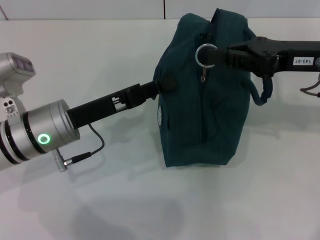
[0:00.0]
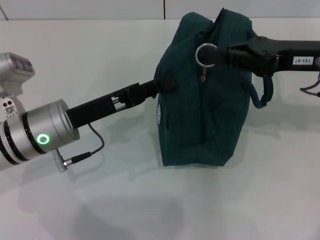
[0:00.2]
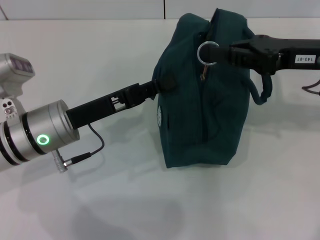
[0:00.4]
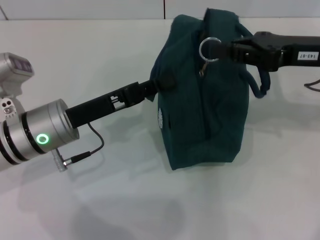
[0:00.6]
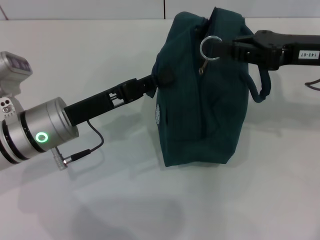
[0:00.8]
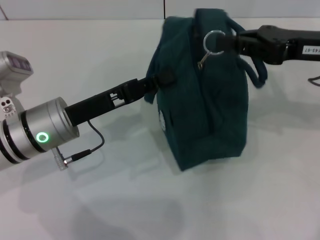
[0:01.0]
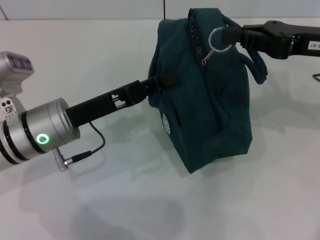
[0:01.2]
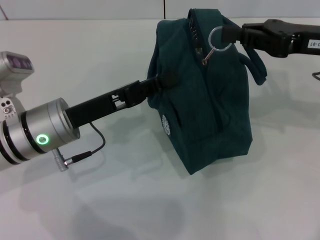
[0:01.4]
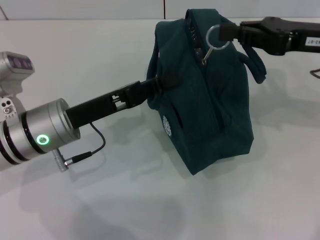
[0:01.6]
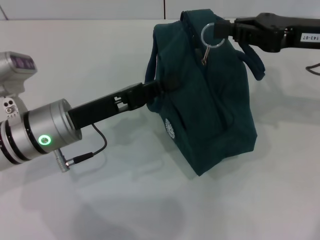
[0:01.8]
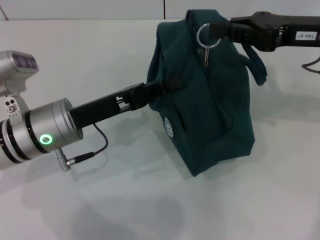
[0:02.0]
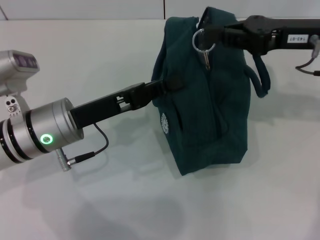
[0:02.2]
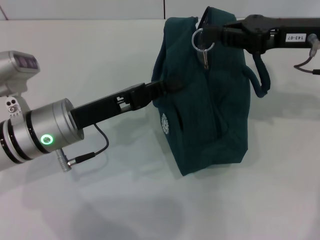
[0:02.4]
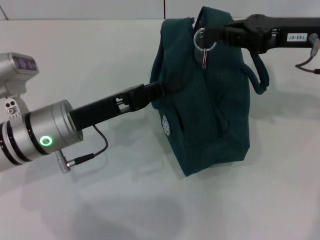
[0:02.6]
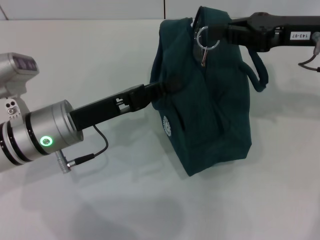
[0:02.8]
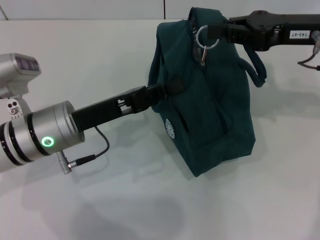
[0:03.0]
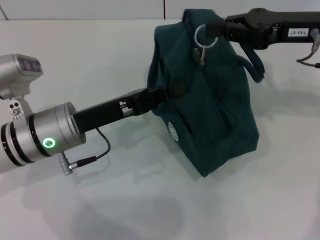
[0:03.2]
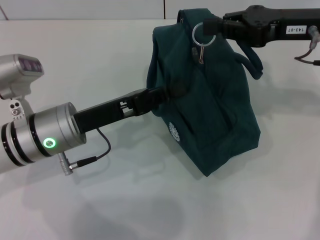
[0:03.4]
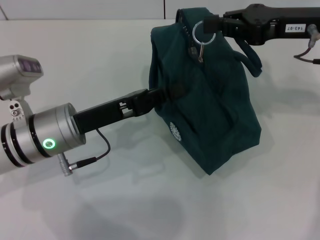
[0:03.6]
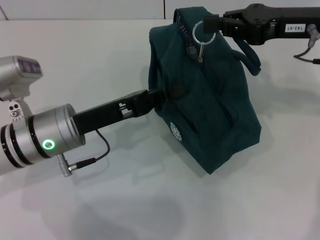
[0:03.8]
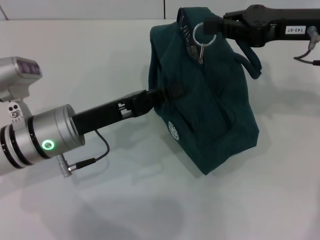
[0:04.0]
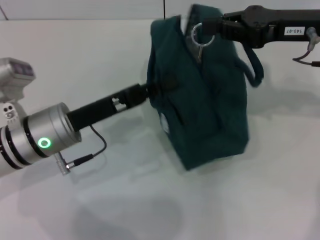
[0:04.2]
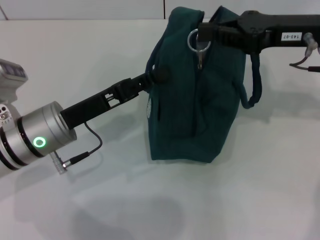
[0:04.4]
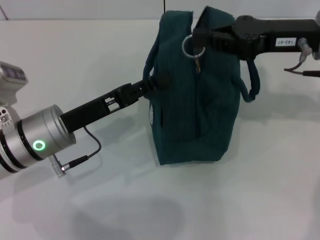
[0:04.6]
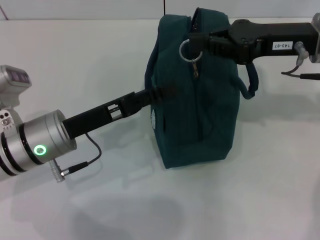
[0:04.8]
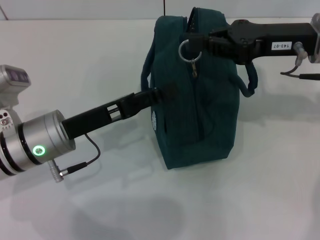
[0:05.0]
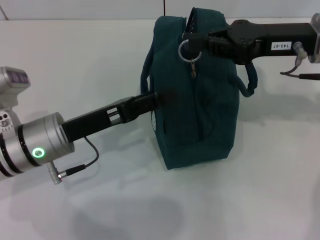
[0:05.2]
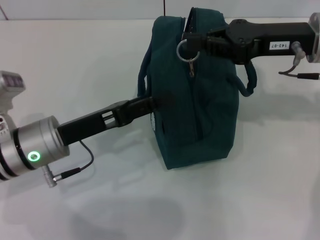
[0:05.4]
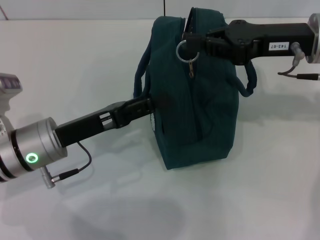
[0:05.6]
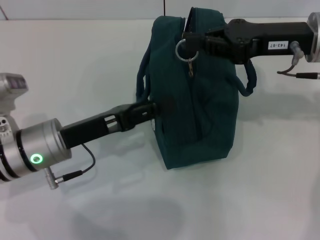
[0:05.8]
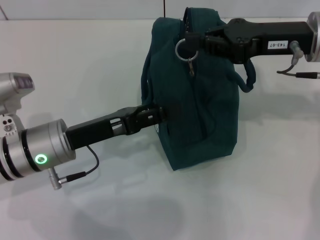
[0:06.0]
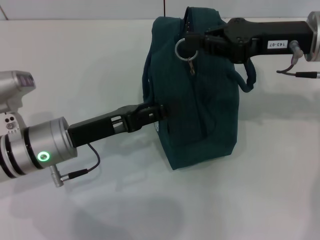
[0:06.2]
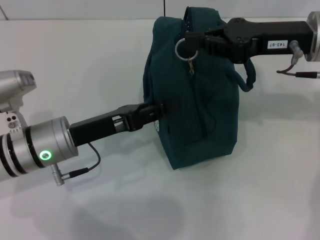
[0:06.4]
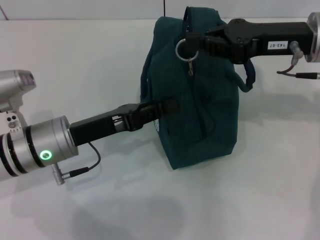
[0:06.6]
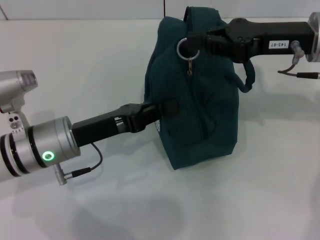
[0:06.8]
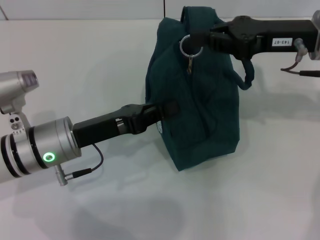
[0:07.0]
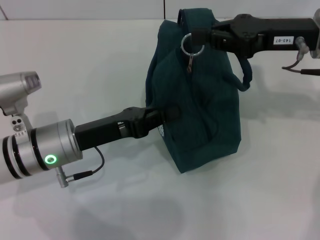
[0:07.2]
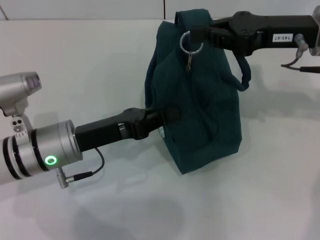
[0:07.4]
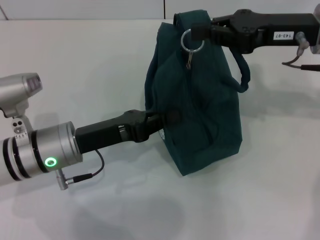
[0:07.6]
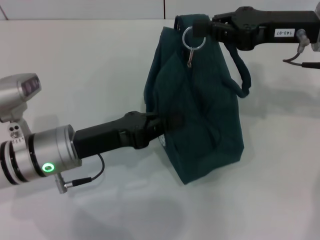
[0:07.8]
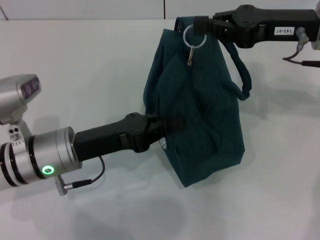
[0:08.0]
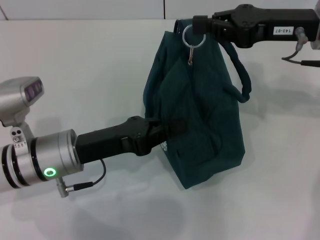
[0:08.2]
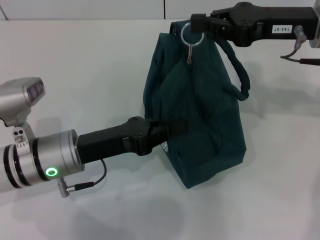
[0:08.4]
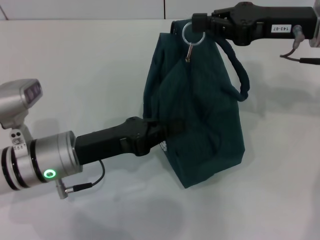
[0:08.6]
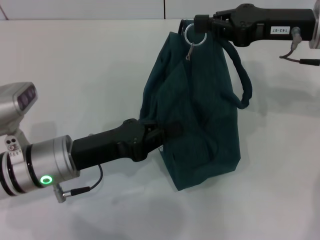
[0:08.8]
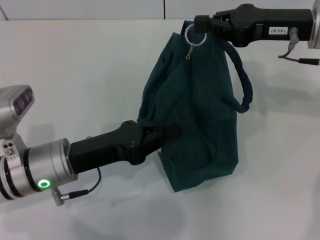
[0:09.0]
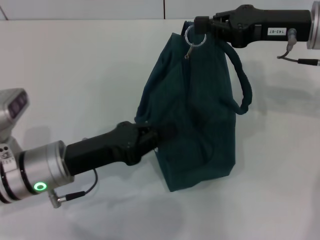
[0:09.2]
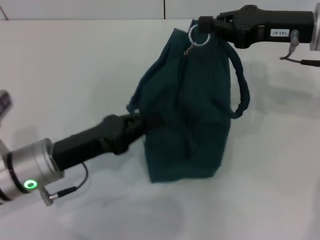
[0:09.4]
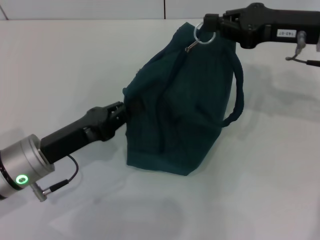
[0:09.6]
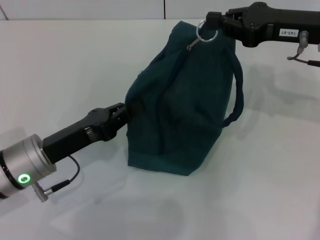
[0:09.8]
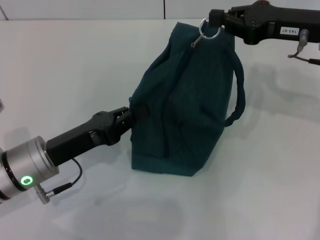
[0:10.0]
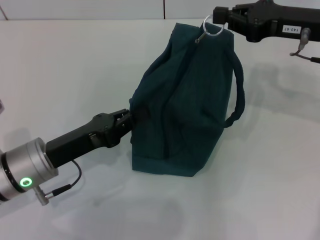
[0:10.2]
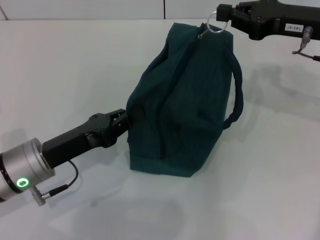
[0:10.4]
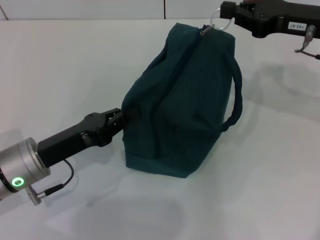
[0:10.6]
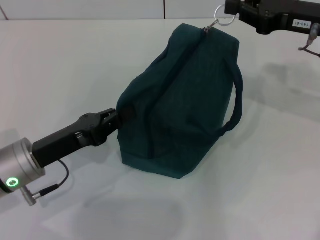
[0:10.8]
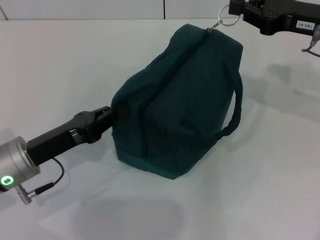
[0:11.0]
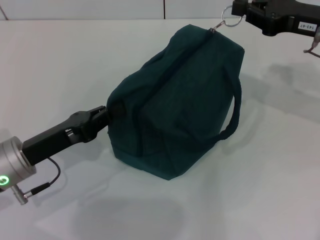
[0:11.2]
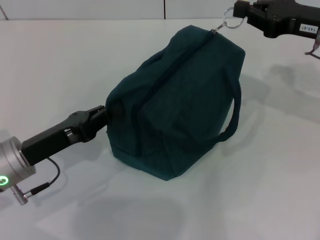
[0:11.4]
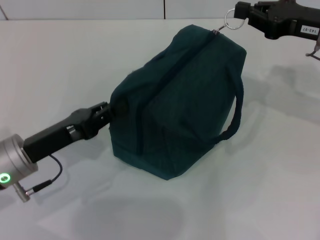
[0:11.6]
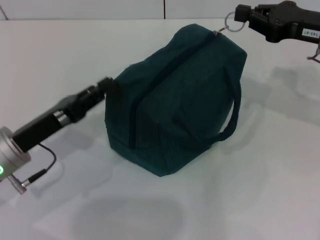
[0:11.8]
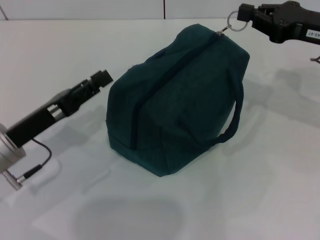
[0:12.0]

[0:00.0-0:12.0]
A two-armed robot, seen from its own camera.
0:00.0 to 0:04.4: The grippers stay close to where they were, moving slightly.
0:04.4 to 0:06.0: The left gripper opens its fingers.
0:06.0 to 0:07.6: The left gripper closes.
0:10.4 to 0:12.0: There are only small adjustments of the grippers.

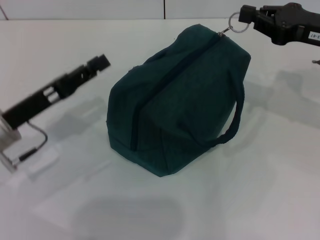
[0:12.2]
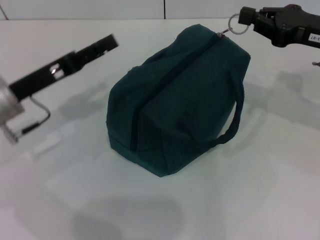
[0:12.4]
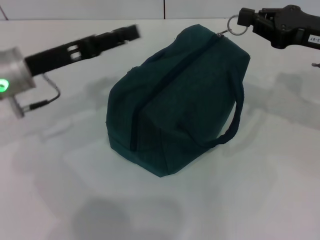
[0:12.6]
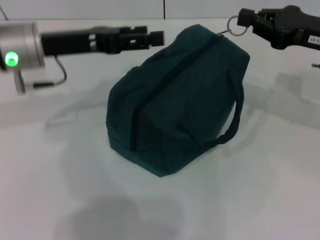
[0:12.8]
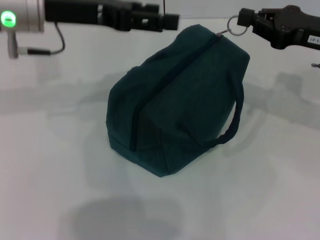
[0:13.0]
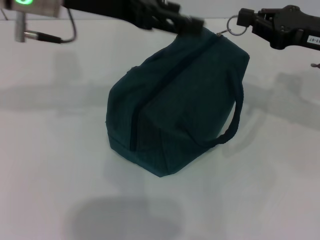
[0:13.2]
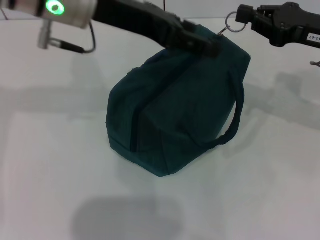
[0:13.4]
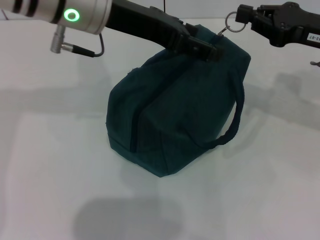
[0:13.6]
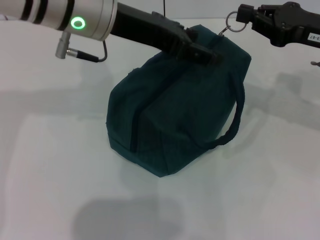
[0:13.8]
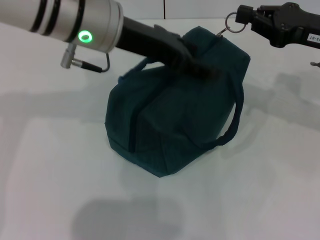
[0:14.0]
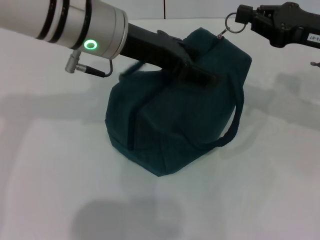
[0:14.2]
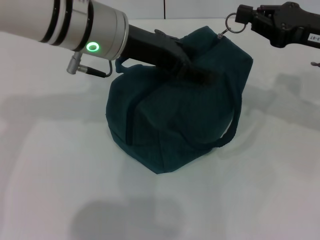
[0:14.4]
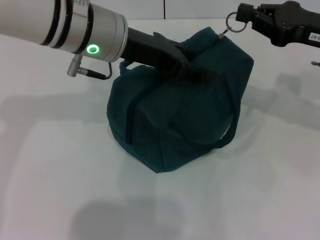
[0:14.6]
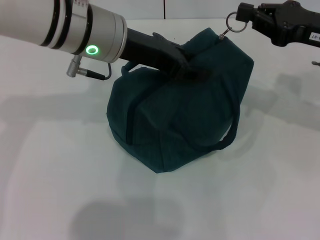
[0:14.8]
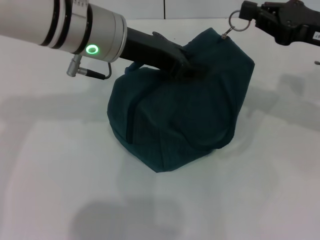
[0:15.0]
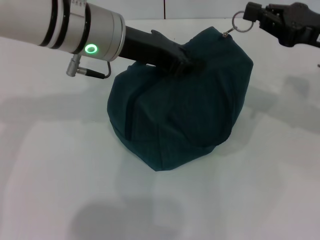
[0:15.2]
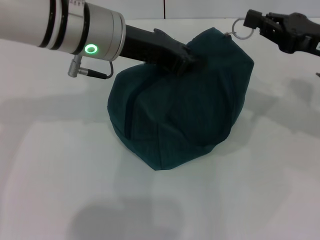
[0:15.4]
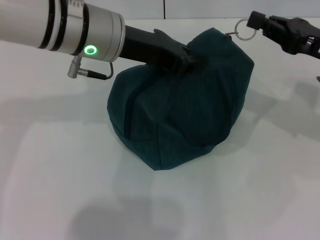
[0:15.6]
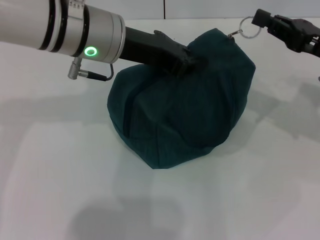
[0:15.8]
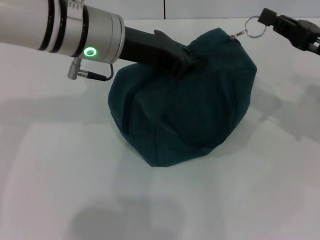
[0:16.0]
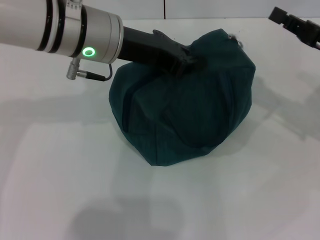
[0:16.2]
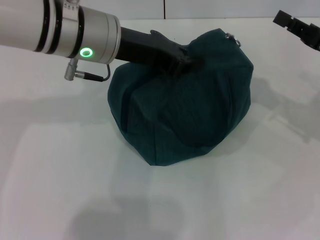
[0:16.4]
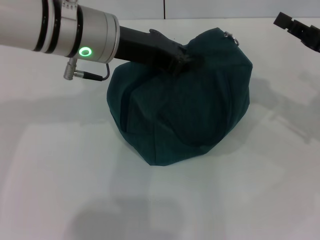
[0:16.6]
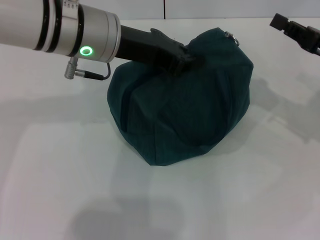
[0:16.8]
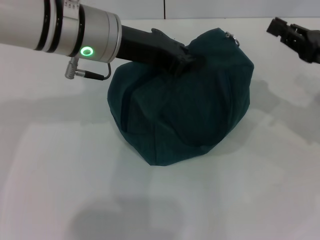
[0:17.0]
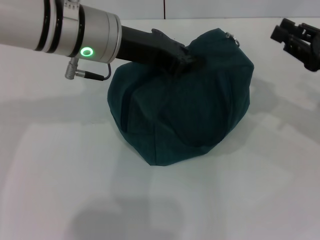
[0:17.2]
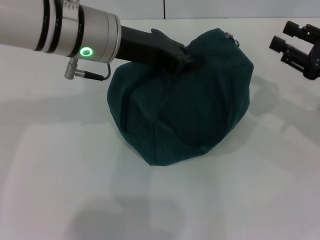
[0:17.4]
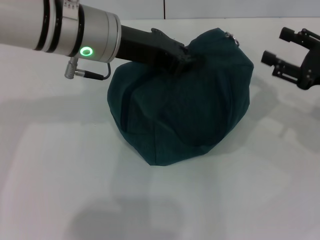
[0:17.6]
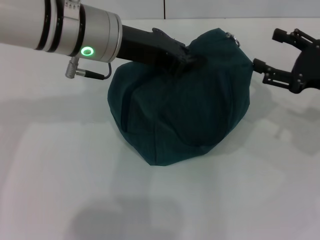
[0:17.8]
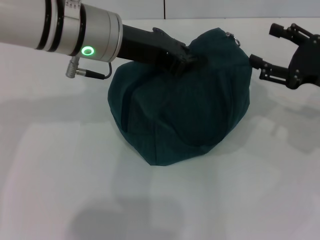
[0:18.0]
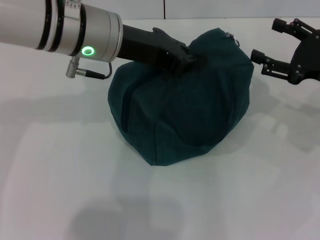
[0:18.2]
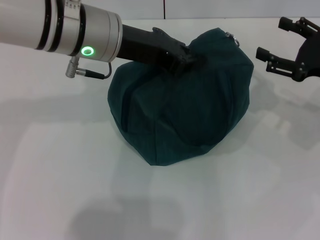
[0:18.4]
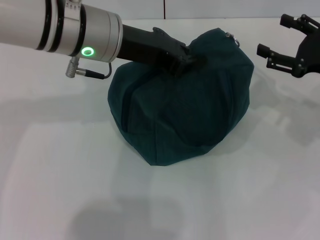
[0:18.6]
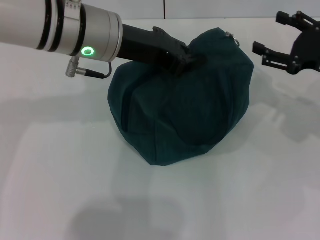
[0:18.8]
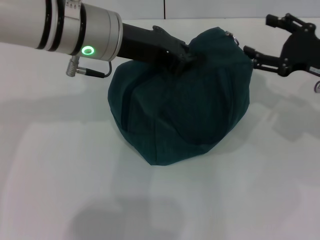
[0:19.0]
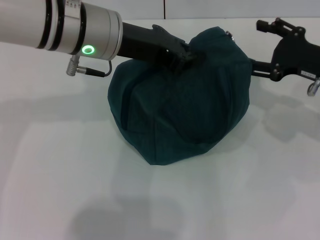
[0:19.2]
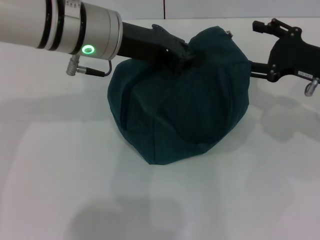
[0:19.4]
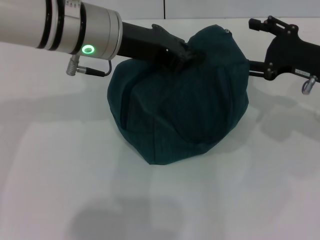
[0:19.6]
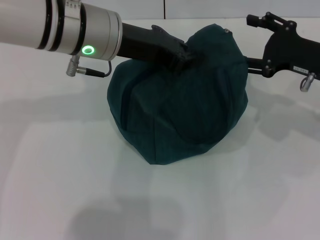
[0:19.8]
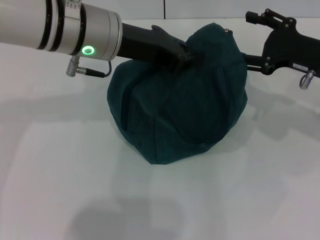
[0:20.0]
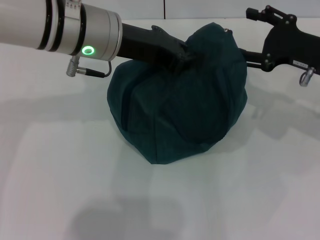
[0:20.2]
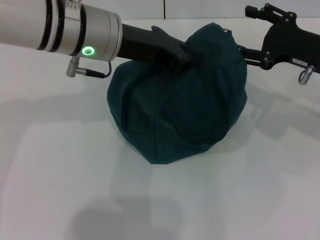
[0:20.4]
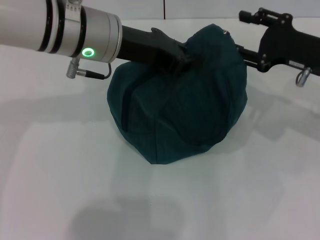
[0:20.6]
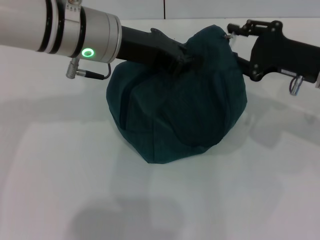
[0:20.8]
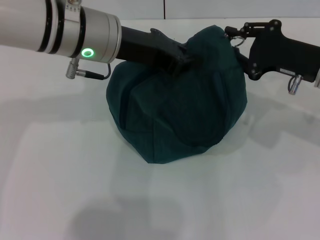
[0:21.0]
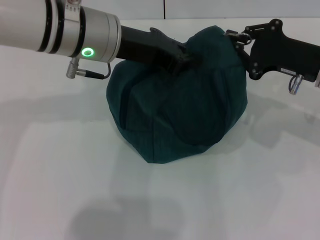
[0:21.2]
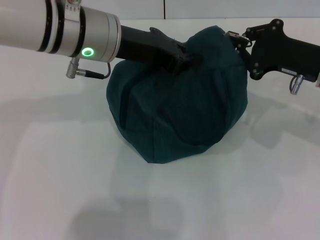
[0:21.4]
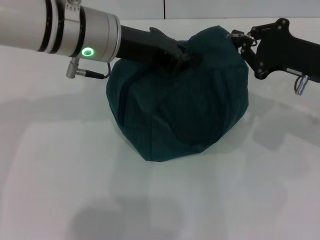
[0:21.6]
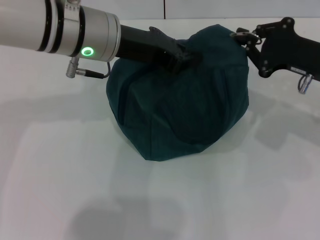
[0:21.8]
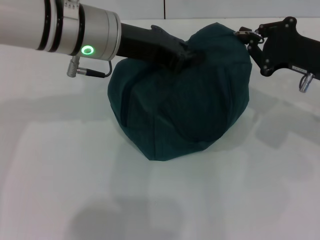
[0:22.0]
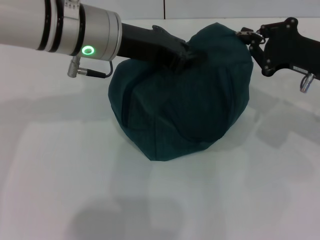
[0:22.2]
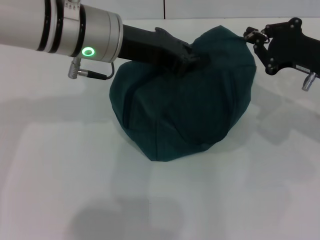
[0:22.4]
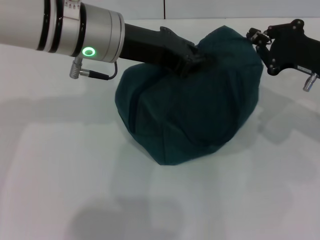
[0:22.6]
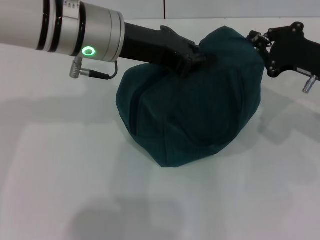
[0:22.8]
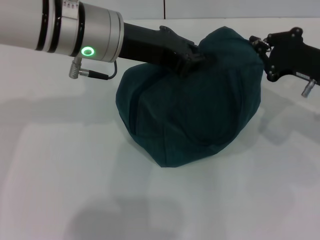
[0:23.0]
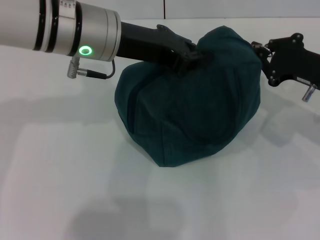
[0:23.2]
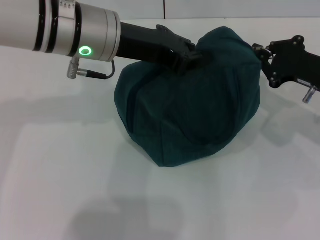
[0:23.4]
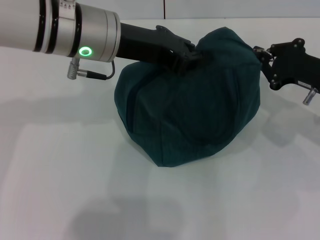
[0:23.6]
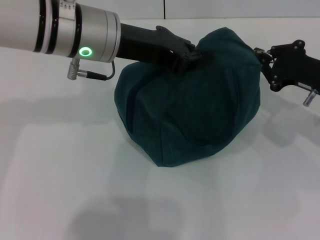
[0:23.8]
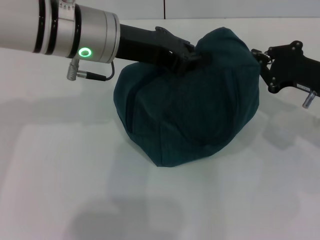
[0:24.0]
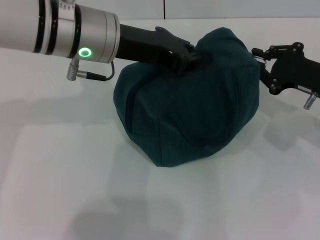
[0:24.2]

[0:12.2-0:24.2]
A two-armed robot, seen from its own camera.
0:12.2 to 0:13.8: The left gripper shifts some 25 cm upward, to the right and forward, and opens up.
0:13.8 to 0:15.2: The left gripper closes up.
0:15.2 to 0:16.6: The right gripper moves approximately 5 cm.
0:16.6 to 0:18.2: The right gripper opens.
0:18.2 to 0:19.8: The grippers move only a little.
0:19.8 to 0:21.2: The right gripper closes.
0:21.2 to 0:24.2: There are only small adjustments of the grippers.
